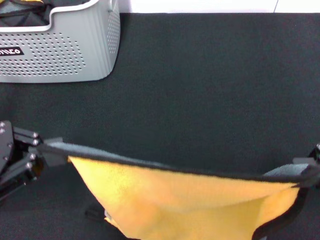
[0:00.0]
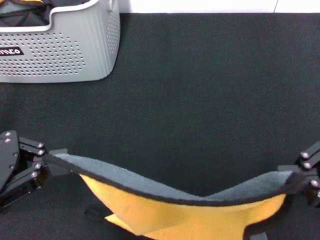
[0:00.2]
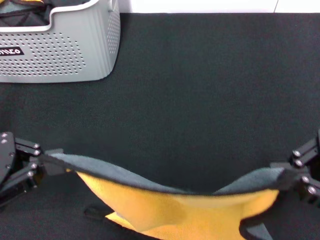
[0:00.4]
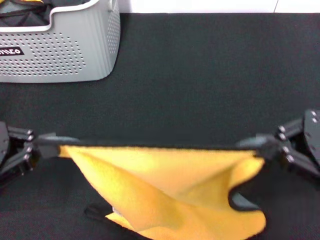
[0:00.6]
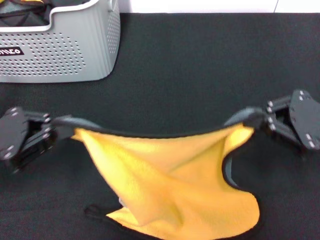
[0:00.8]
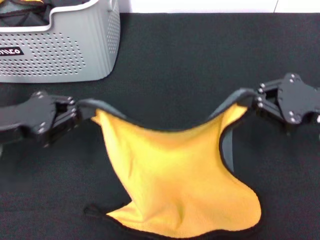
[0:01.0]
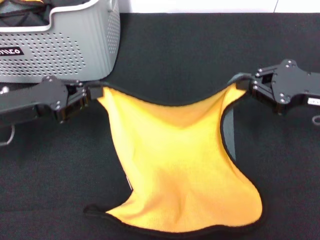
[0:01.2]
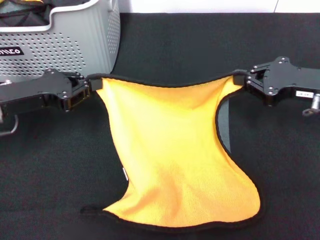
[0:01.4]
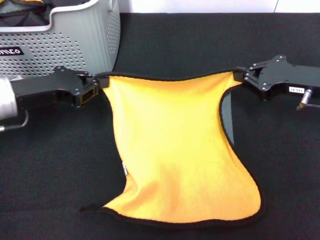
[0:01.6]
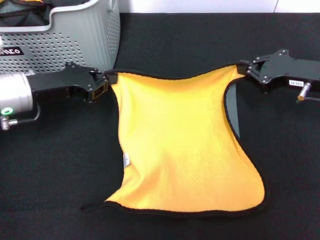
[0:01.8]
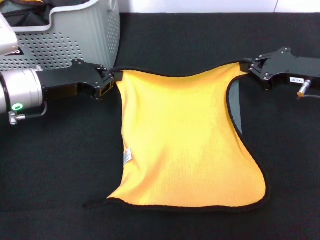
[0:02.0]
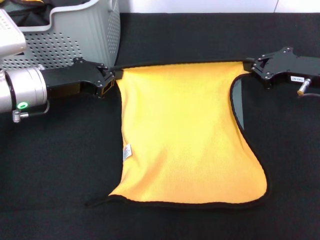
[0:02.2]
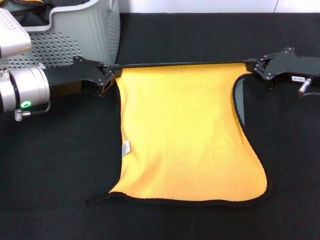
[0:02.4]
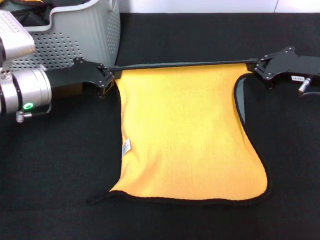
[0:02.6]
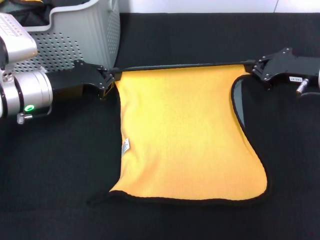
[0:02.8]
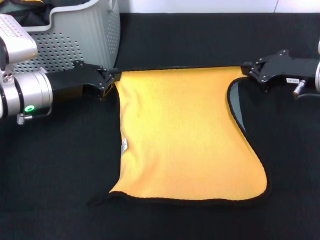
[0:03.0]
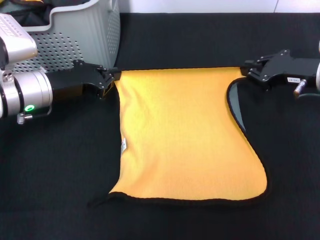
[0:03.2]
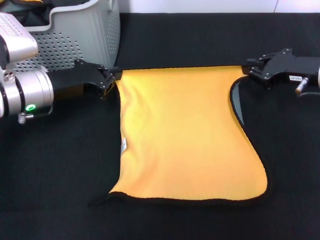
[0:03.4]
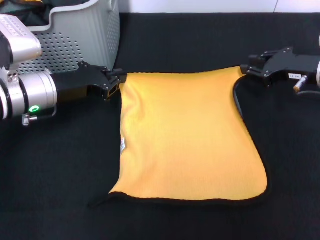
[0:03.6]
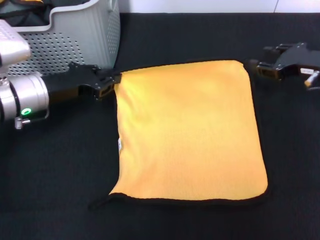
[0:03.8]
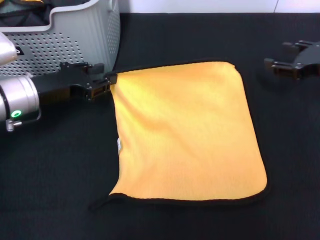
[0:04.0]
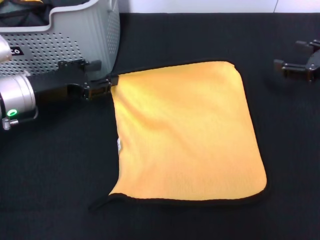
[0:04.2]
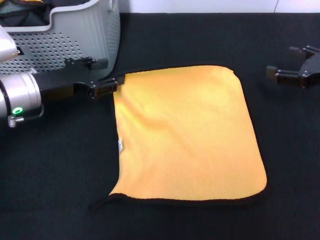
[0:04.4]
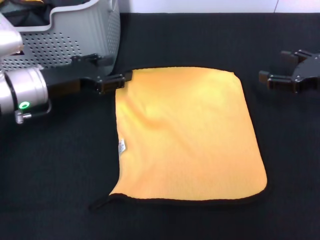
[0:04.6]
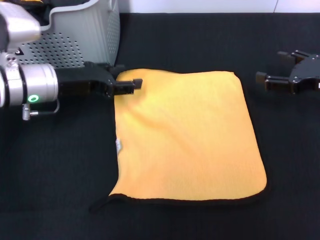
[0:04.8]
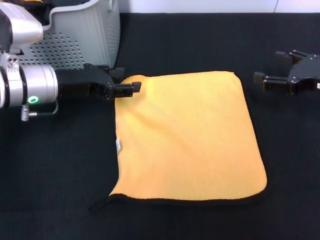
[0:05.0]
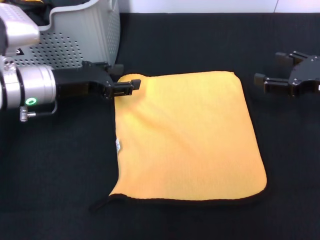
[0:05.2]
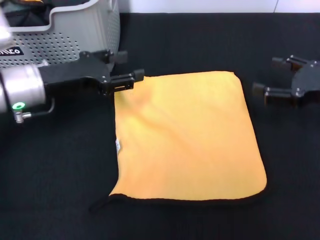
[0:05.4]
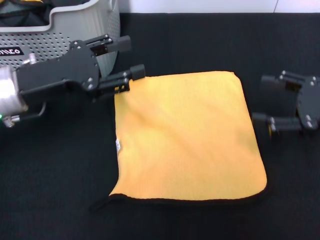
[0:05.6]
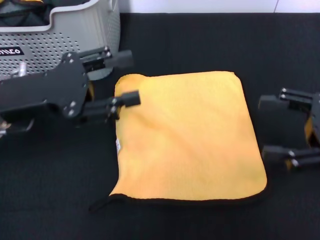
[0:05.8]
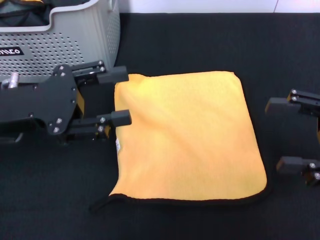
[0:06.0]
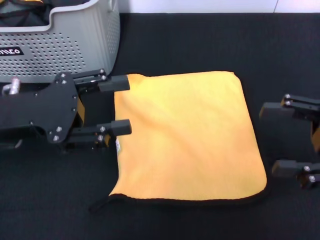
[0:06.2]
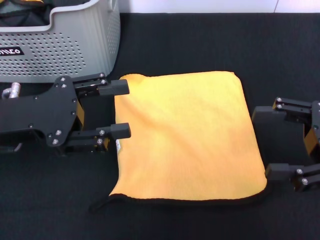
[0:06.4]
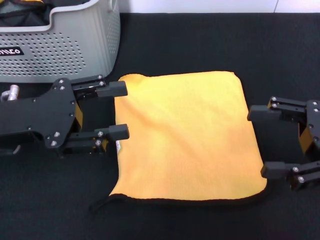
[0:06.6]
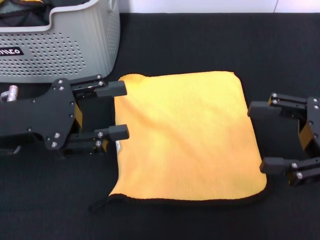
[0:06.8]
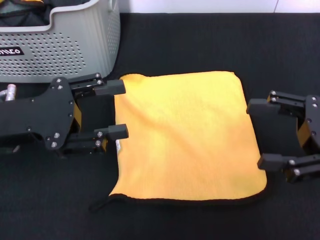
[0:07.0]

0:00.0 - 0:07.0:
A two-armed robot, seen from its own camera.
Task of the whole recording: pick up the towel from the storage box and lay it flat on the black tablecloth.
Step, 0:00.0 - 0:05.2: Spread the towel flat with the right gripper.
0:00.0 - 0:01.4: The left gripper travels forward by roughly 10 cm. The right gripper travels forward and downward by approximately 15 cm.
0:01.4 - 0:02.8: The left gripper ends up approximately 5 cm from where it was.
0:02.8 - 0:04.2: The right gripper goes some 5 cm to the right, and opens. Meanwhile the left gripper opens up.
0:04.2 - 0:05.6: The left gripper shifts by about 5 cm, and opens up; the right gripper goes roughly 5 cm backward.
0:05.6 - 0:07.0: The left gripper shifts by some 5 cm.

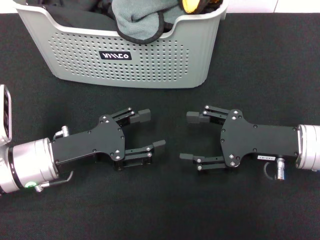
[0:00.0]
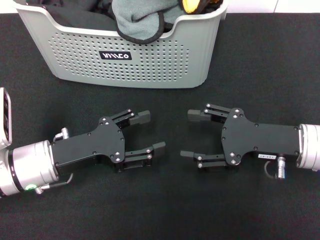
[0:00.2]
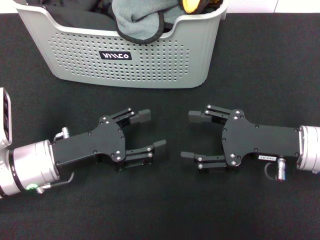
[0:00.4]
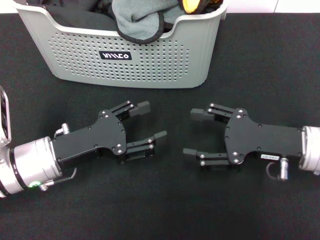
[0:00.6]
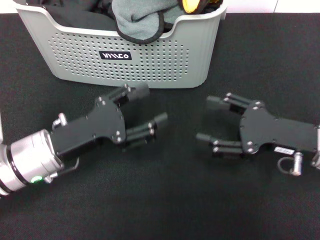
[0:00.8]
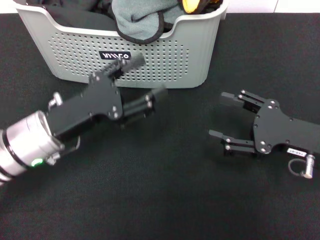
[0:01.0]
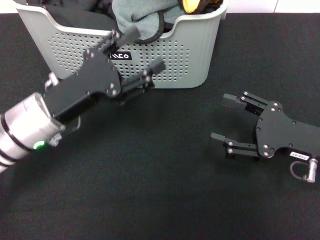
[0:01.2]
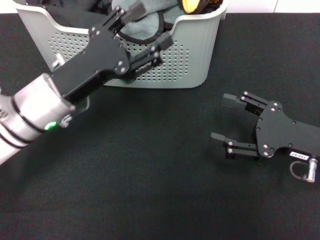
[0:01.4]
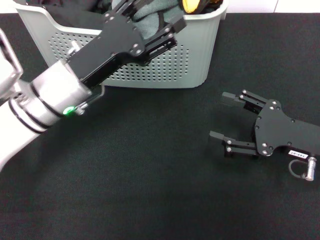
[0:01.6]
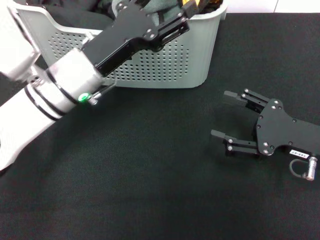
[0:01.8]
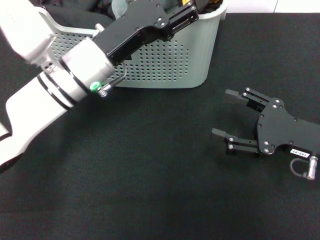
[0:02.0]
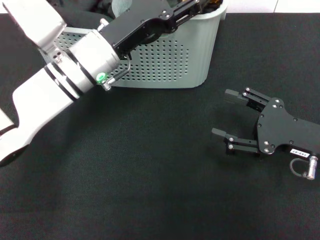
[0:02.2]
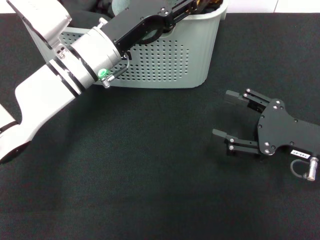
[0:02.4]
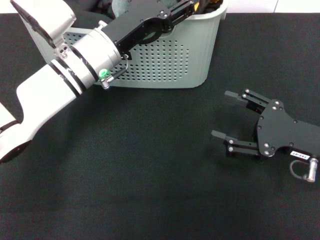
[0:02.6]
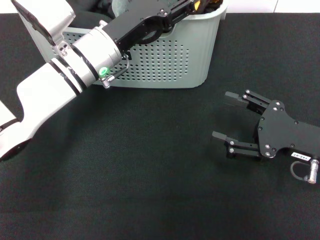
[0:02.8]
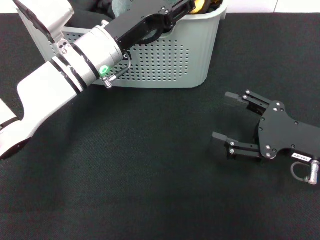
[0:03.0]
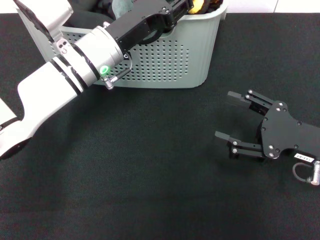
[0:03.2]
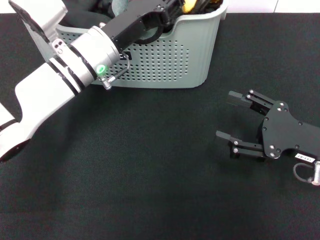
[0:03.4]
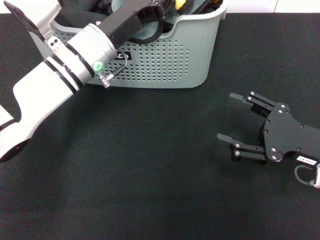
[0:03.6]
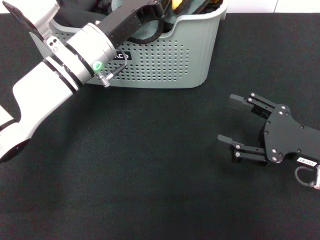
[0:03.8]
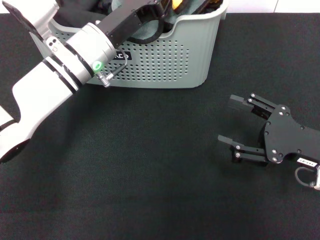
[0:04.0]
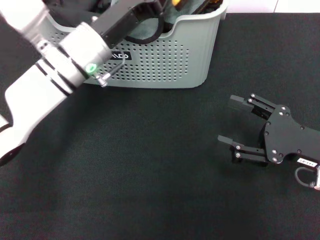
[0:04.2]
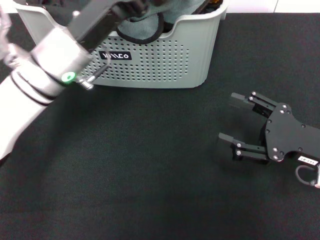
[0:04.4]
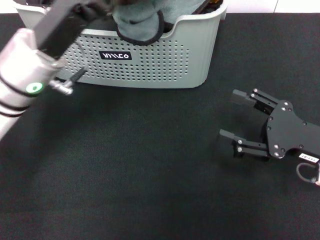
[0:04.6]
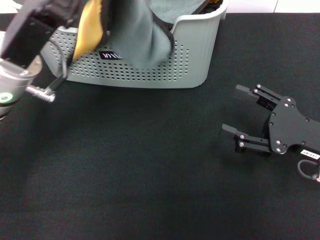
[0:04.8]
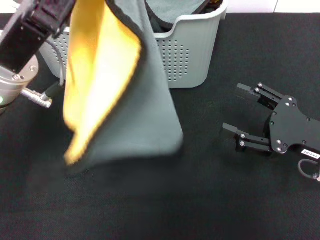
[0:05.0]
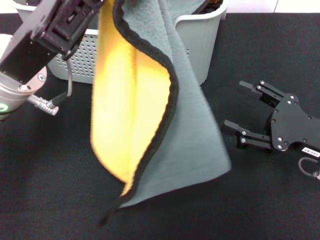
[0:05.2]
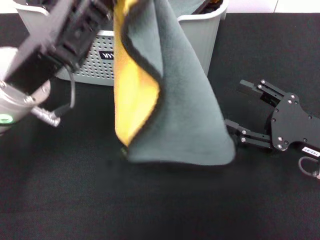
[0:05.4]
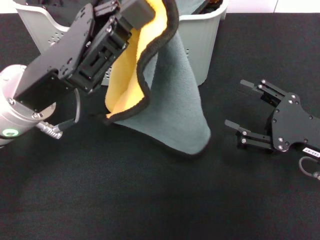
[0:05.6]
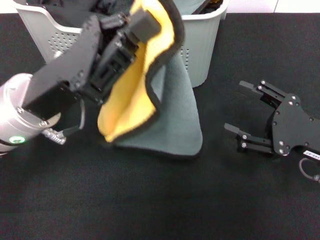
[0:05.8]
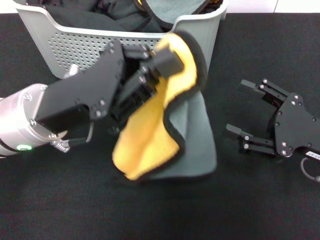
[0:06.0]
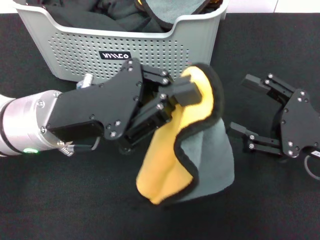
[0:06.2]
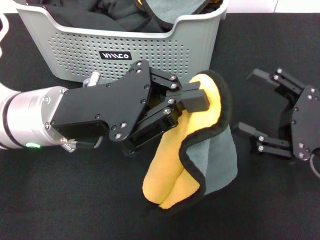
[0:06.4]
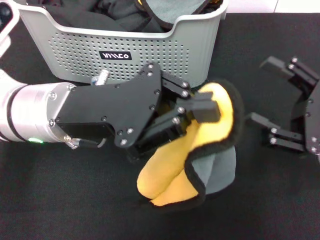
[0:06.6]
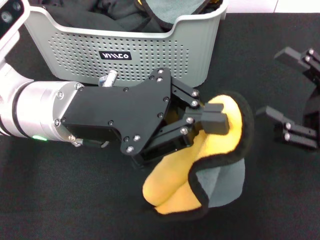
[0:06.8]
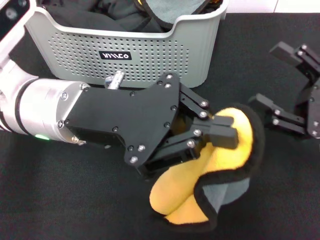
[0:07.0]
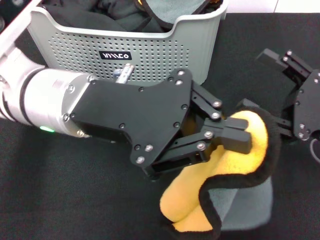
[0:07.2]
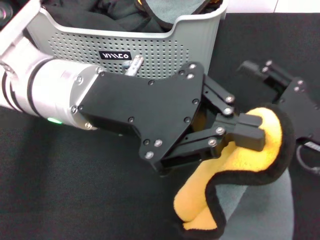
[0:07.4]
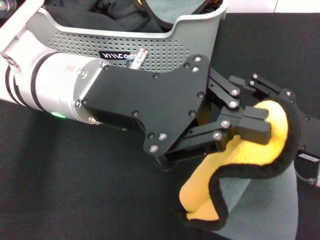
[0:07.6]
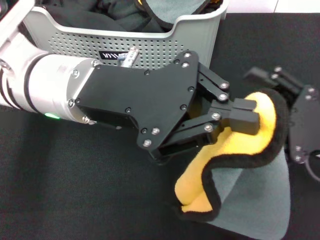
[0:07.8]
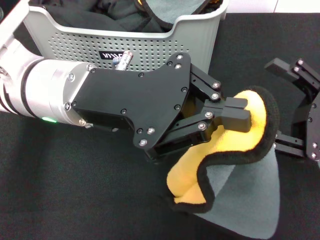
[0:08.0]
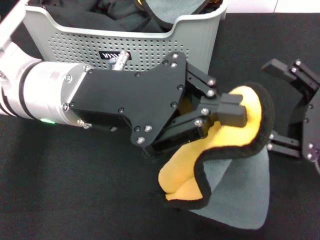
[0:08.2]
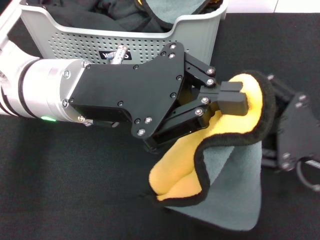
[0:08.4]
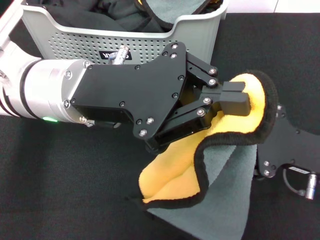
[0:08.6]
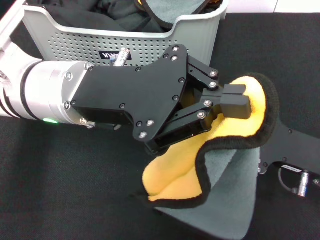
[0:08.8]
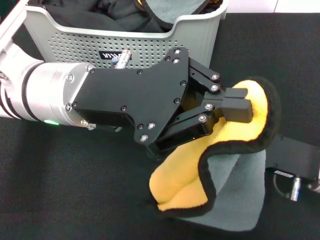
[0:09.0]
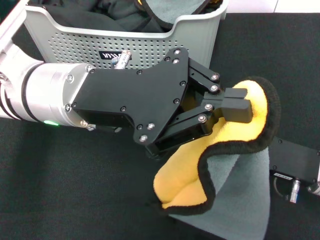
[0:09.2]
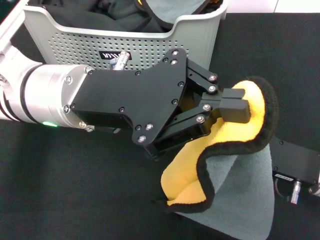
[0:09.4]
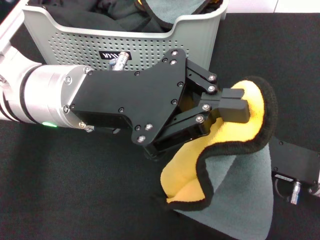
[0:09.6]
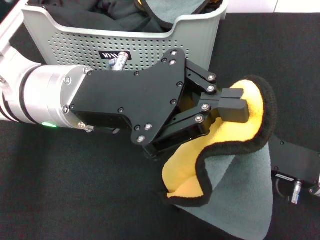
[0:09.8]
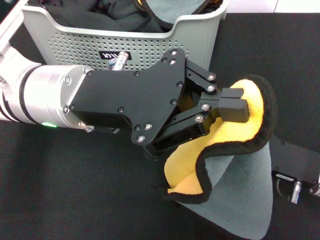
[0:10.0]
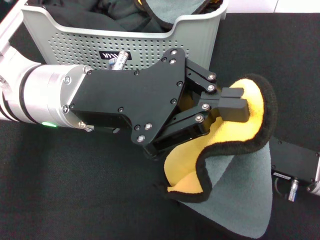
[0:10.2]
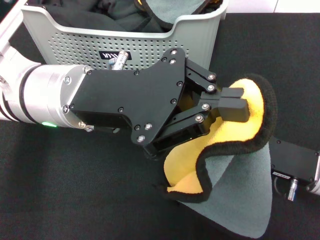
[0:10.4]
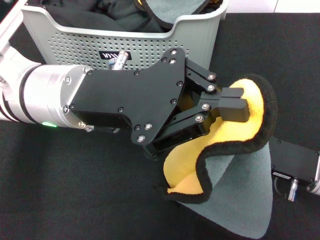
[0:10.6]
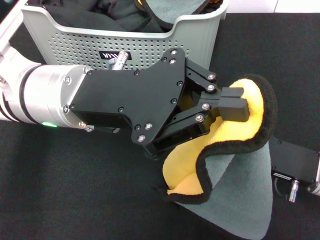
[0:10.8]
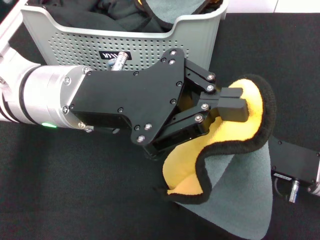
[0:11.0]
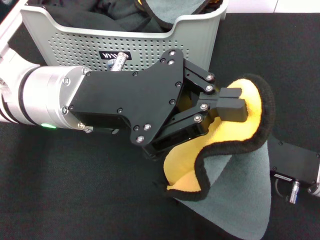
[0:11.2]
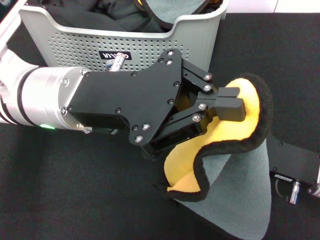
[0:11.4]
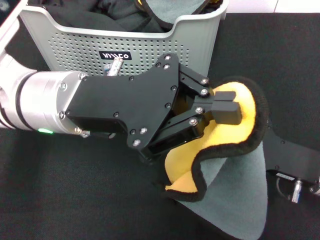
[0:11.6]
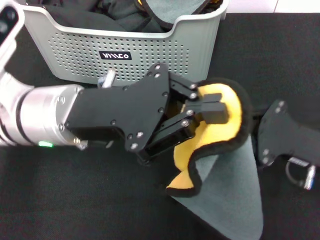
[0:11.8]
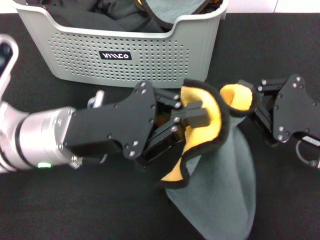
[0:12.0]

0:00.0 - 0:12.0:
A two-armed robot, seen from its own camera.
Task of the whole recording: pick up the towel from the storage box and lay it flat on the black tablecloth.
Step, 0:00.0 - 0:03.2: Pick up a towel with the left gripper.
Step, 0:03.6 - 0:11.8: Spread the towel flat with the left gripper.
0:00.0 - 0:01.6: The left gripper shifts about 10 cm forward, upward and to the right.
0:01.6 - 0:03.0: The left gripper travels forward by approximately 5 cm.
0:03.0 - 0:04.4: The left gripper changes place by roughly 5 cm, and closes.
0:04.4 - 0:06.0: The left gripper heads backward, covering roughly 5 cm.
0:06.0 - 0:07.6: The left gripper shifts approximately 10 cm upward and to the right.
0:09.0 - 0:10.4: The right gripper closes.
0:10.4 - 0:12.0: The left gripper heads downward, covering roughly 5 cm.

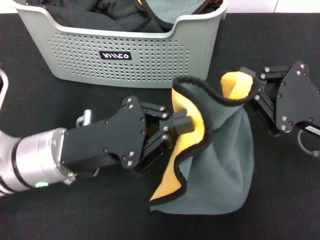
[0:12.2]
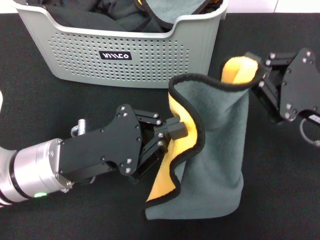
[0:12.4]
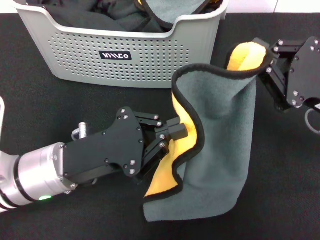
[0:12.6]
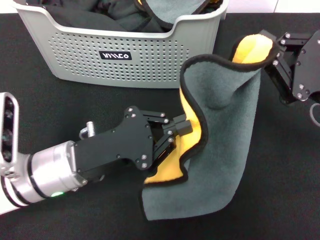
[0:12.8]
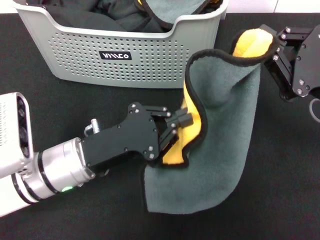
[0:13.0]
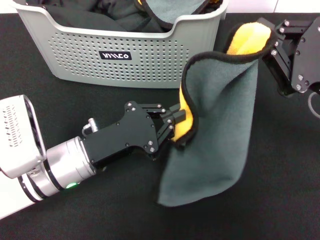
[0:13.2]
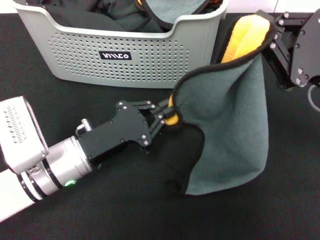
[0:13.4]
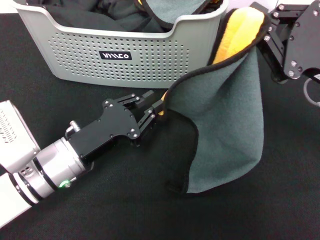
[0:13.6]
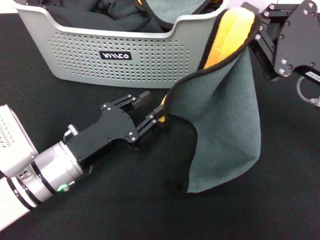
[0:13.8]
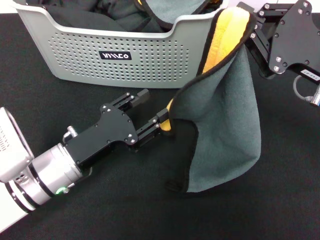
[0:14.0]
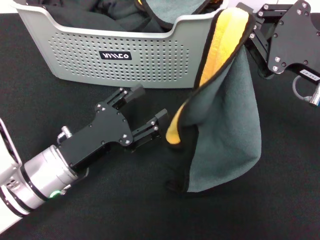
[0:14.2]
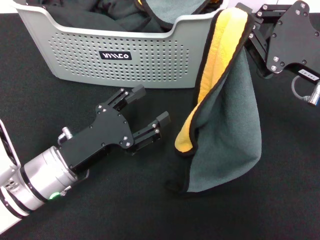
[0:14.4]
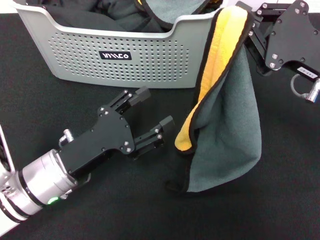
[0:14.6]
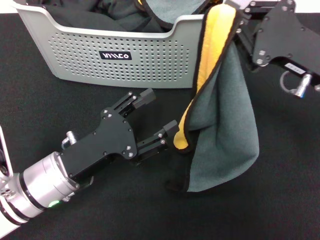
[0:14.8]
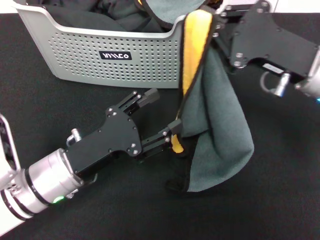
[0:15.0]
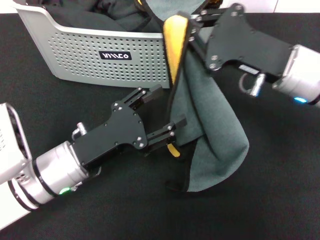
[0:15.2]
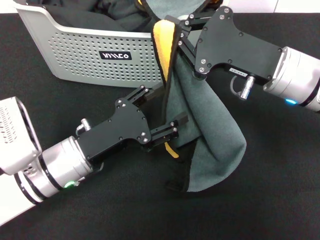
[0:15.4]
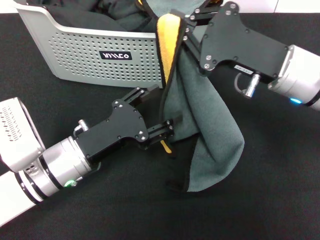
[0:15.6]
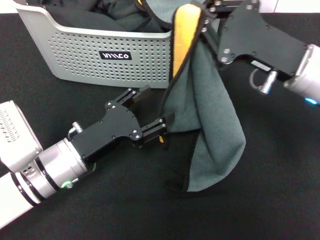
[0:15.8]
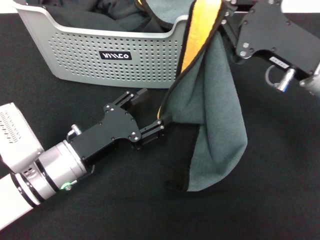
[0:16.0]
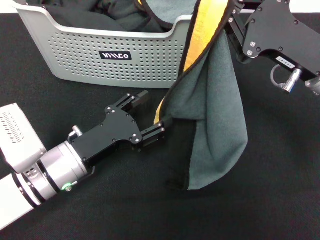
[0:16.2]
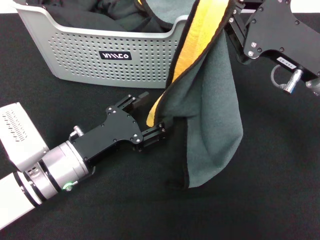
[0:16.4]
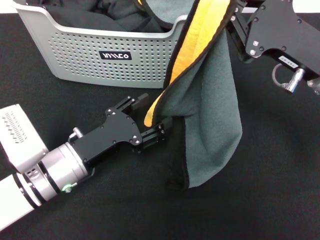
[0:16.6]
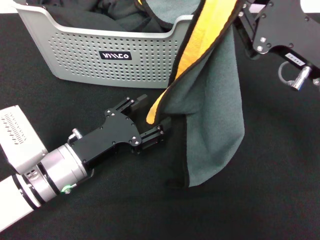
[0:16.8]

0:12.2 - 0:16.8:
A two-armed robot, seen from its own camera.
Task of the whole recording: pick up the towel from the storage box and lay it flat on the black tablecloth.
0:12.2 - 0:13.8: The right gripper ends up some 5 cm from where it was, while the left gripper shifts approximately 5 cm downward.
0:13.8 - 0:15.2: The left gripper opens up; the right gripper is displaced to the left by some 5 cm.
